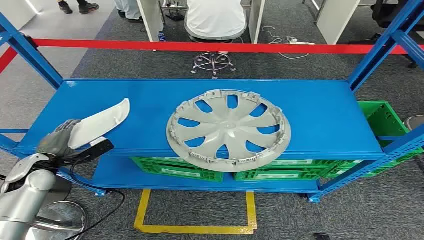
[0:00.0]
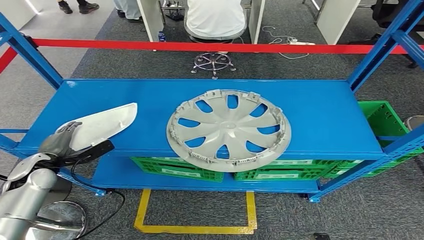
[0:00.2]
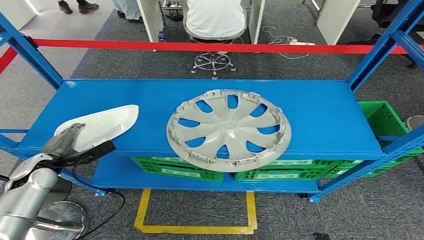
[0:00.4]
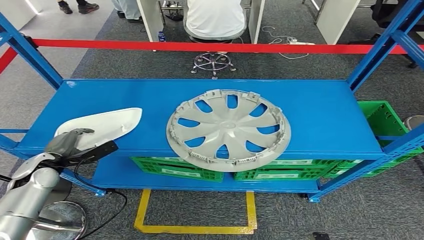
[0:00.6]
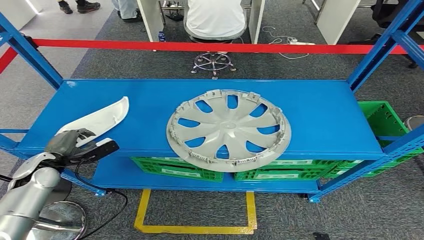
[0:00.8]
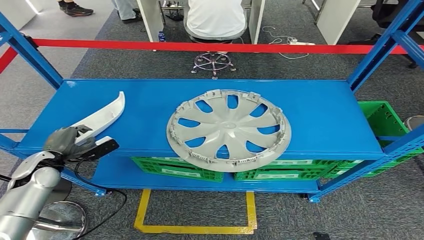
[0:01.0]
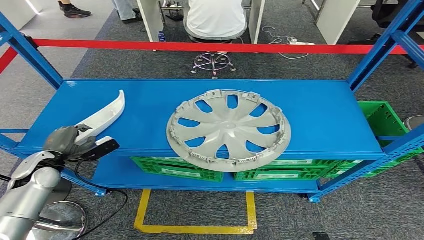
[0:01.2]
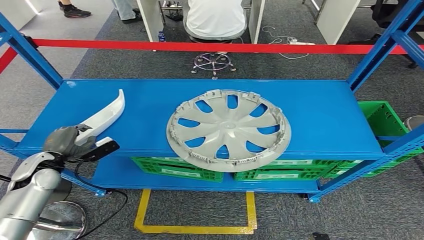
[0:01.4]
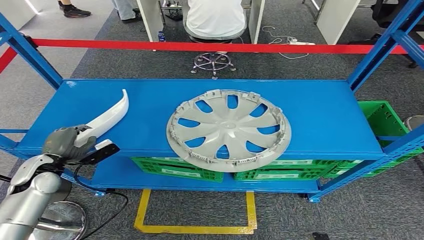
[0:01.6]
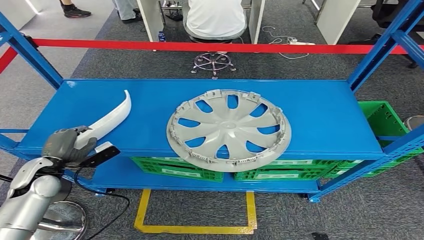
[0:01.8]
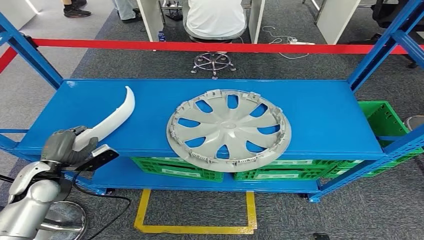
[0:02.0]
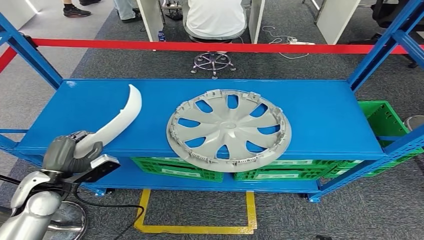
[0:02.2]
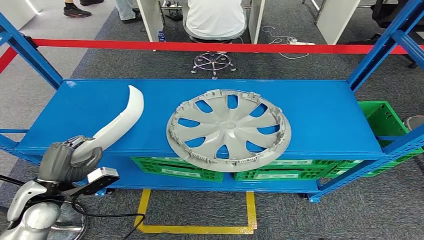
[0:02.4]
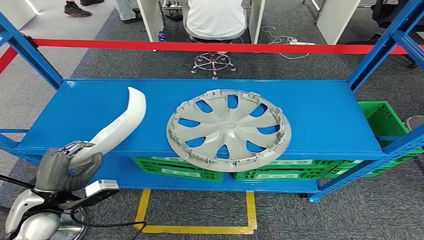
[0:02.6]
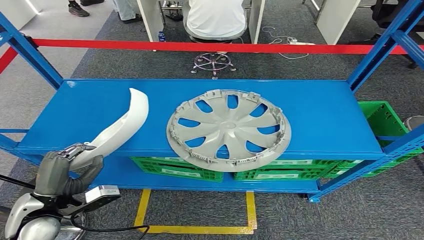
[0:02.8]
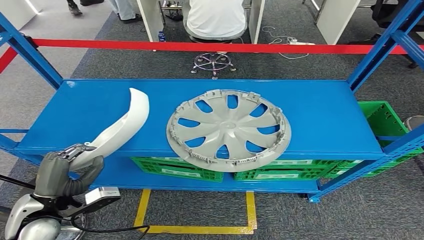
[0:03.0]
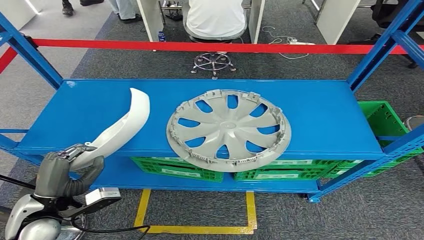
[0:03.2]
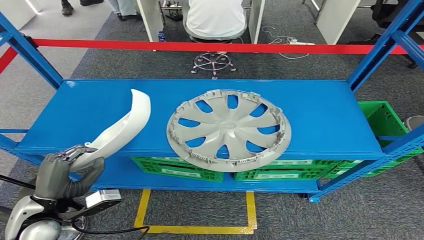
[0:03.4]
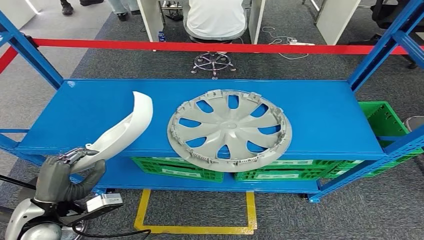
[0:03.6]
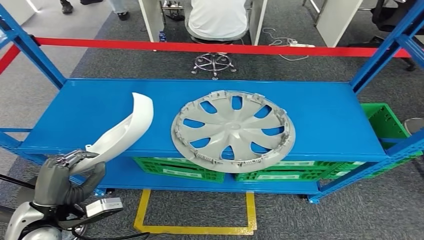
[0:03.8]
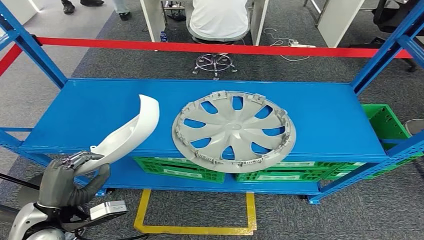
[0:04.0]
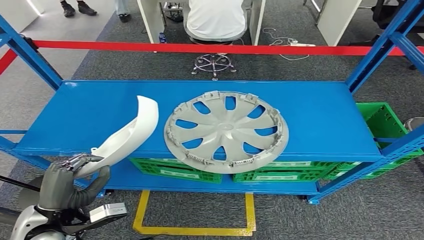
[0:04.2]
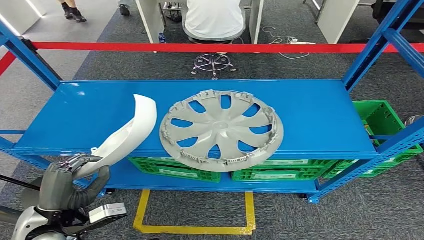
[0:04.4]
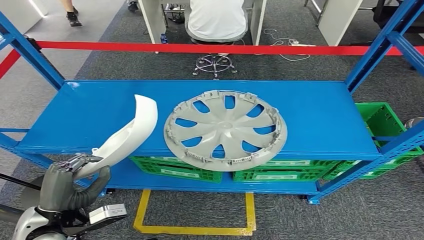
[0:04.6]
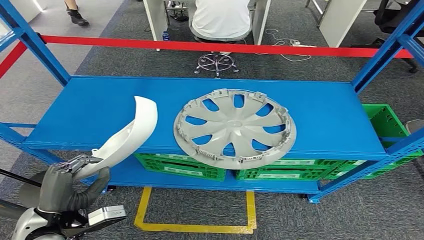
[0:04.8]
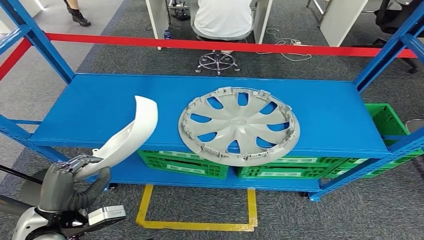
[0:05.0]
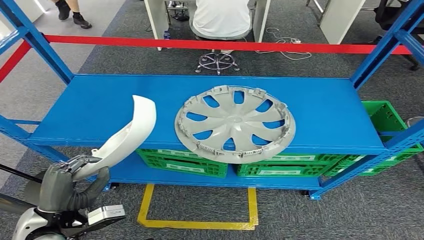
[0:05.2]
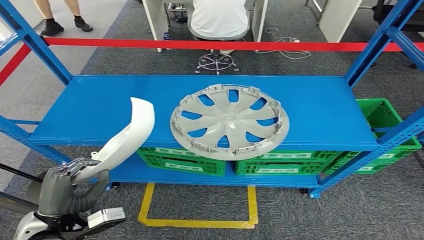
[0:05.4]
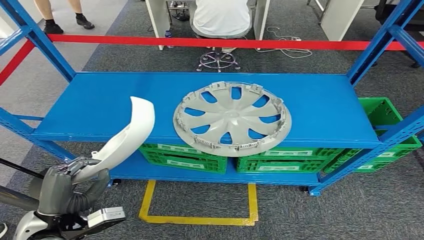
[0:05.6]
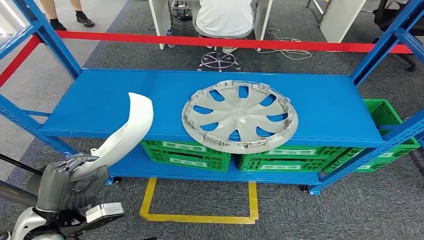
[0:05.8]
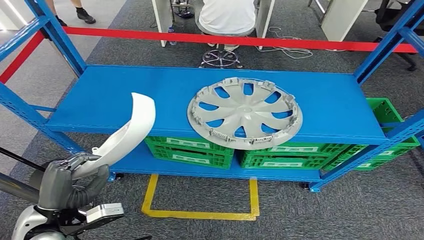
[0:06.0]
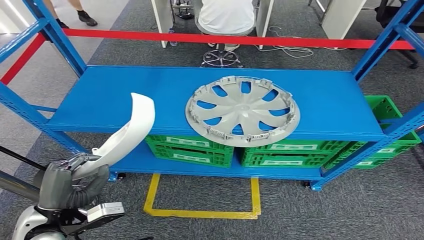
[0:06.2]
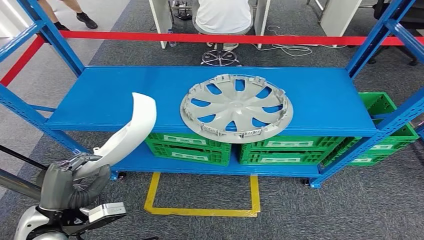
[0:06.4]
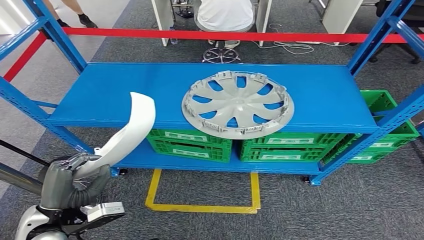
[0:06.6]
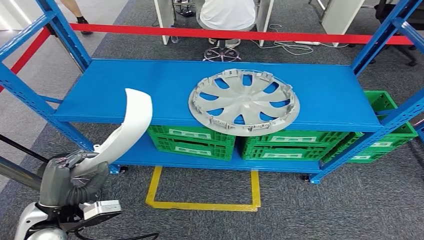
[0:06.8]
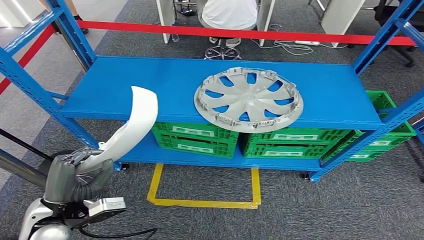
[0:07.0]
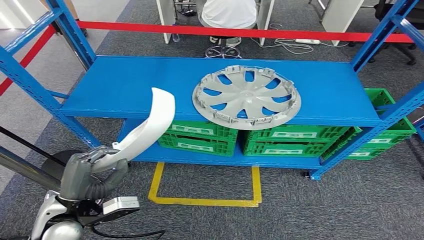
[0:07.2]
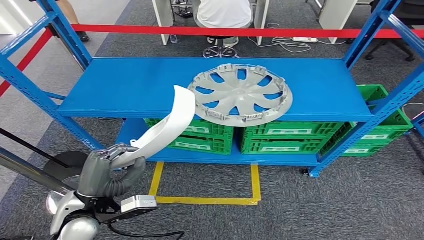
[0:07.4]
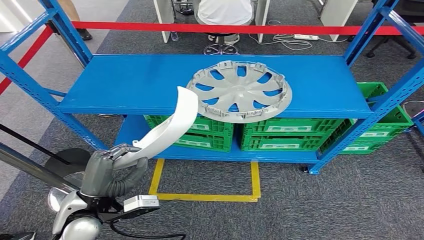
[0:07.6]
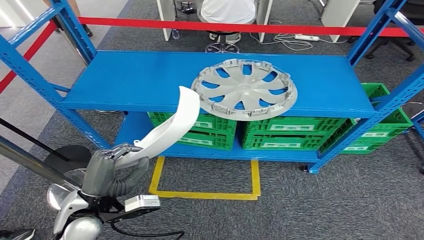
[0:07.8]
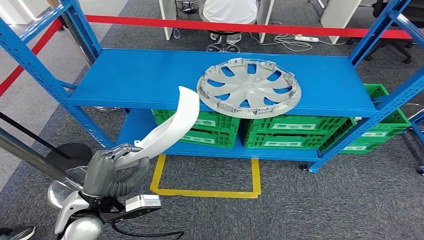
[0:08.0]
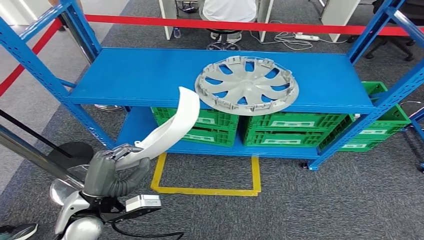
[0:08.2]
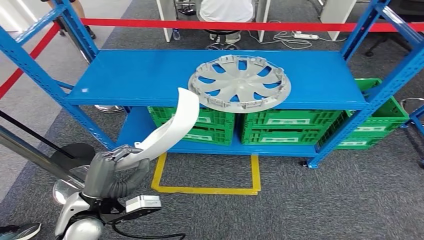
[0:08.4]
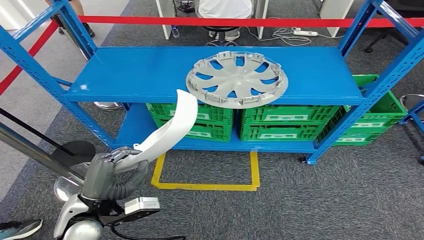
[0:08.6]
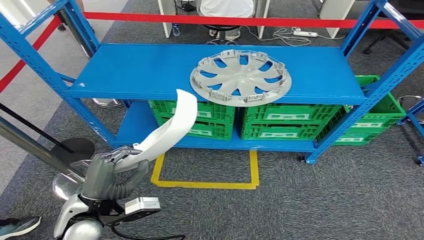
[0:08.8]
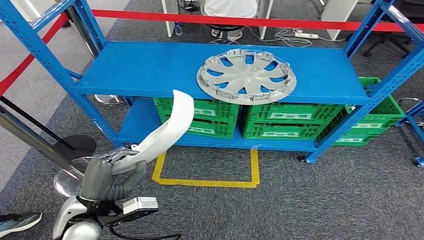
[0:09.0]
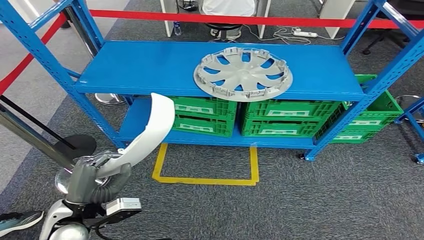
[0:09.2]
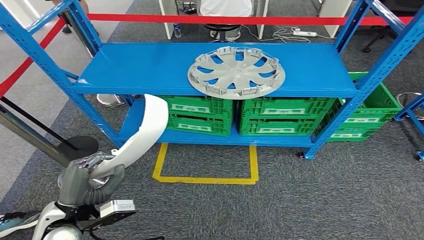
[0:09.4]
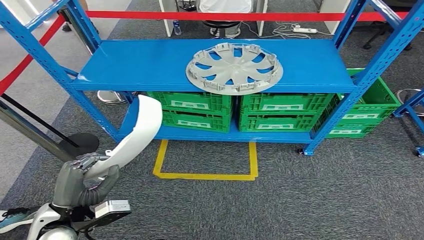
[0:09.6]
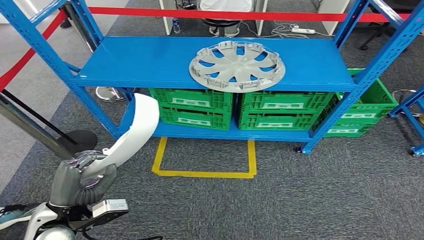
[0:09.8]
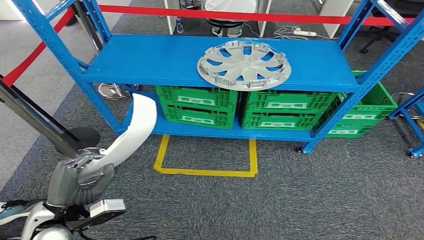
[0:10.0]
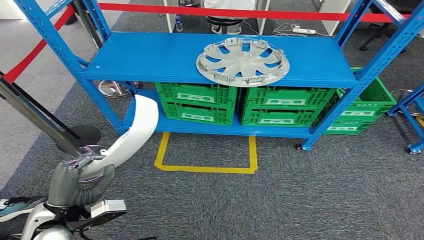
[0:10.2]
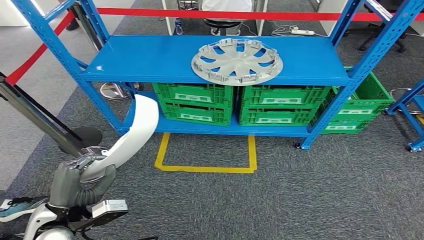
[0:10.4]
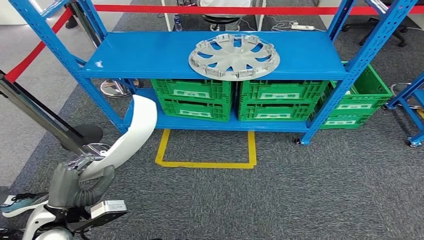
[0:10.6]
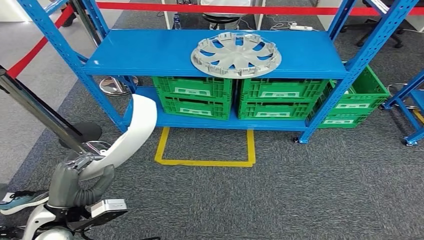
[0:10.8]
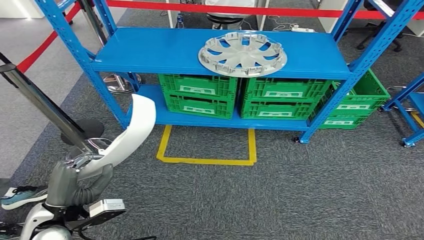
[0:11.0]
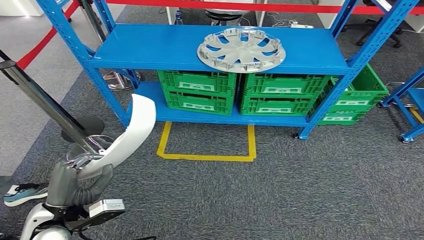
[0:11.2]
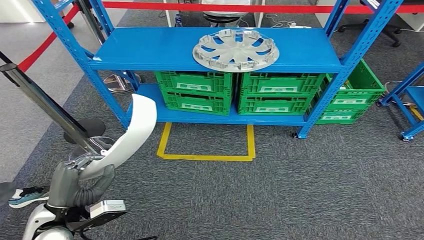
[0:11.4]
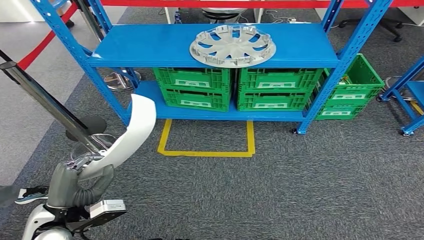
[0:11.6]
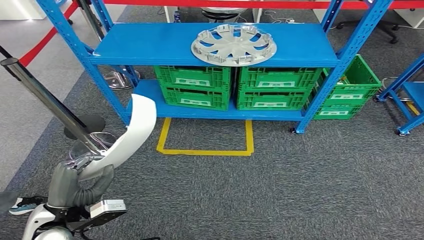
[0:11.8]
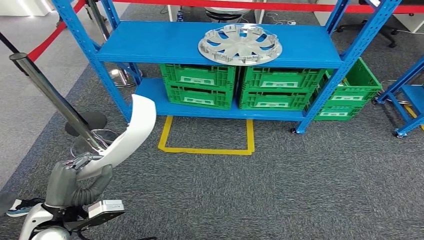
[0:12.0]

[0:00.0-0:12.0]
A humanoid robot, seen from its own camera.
Step, 0.0 to 4.8 s: Pick up the small component from the shelf.
1.6 to 3.0 s: The left hand shifts approximately 15 cm backward and to the right.

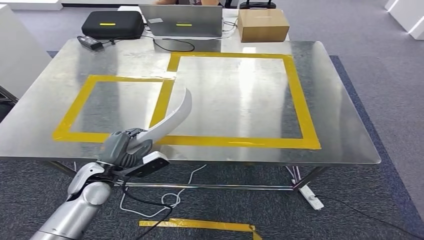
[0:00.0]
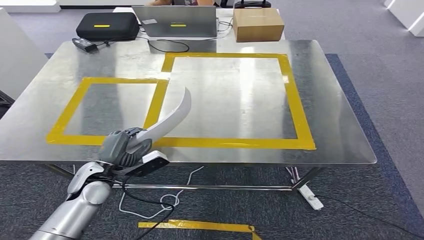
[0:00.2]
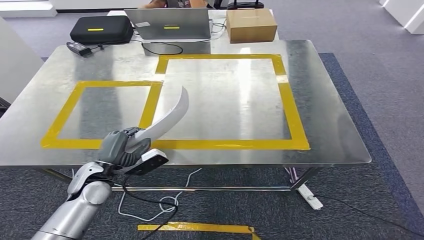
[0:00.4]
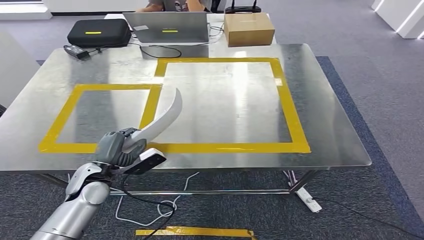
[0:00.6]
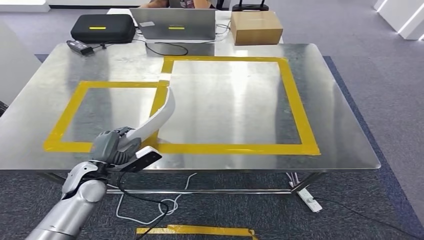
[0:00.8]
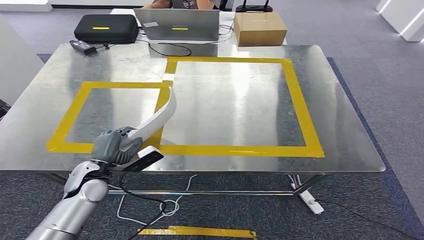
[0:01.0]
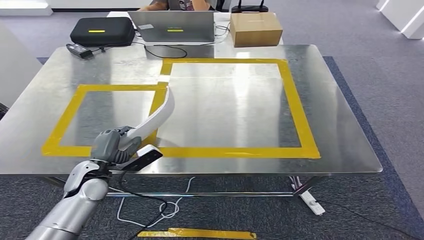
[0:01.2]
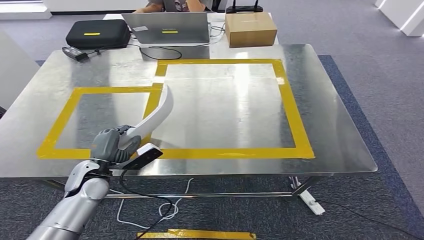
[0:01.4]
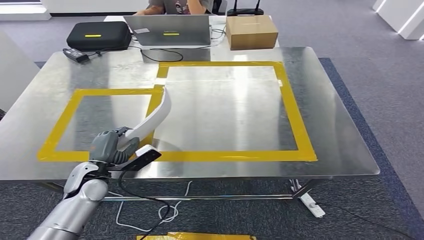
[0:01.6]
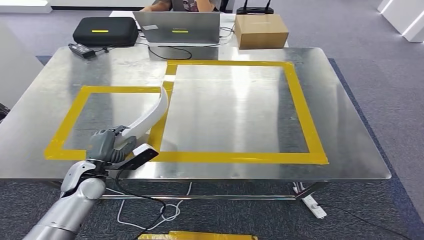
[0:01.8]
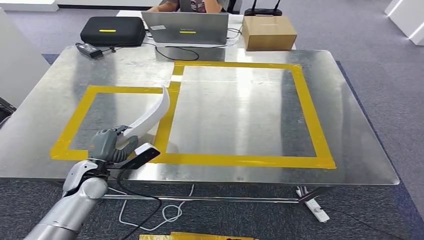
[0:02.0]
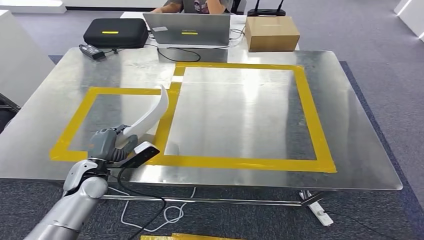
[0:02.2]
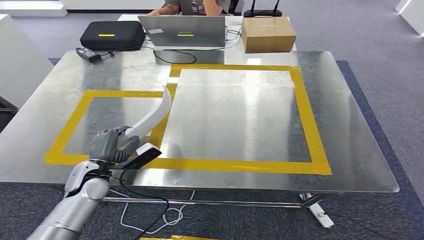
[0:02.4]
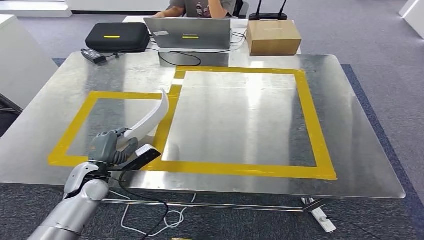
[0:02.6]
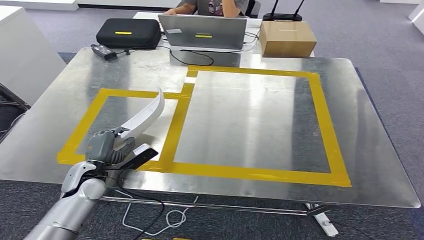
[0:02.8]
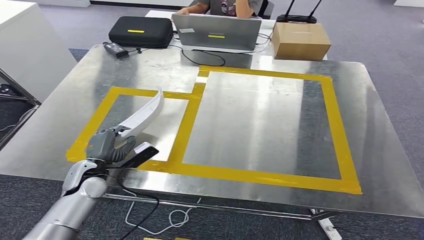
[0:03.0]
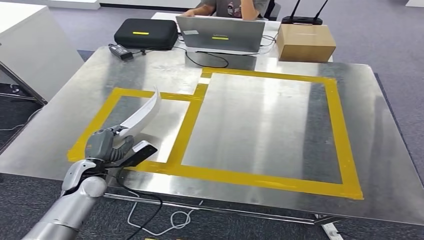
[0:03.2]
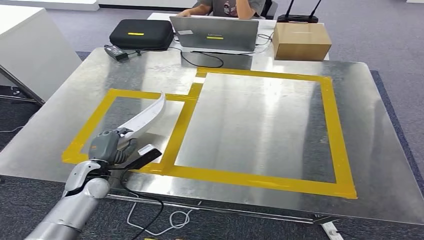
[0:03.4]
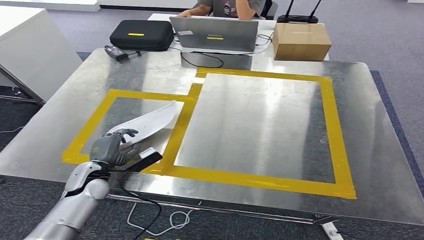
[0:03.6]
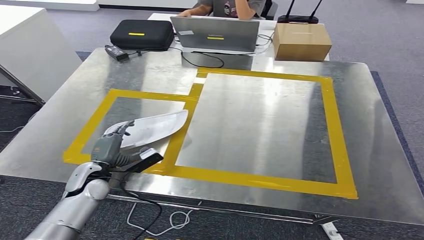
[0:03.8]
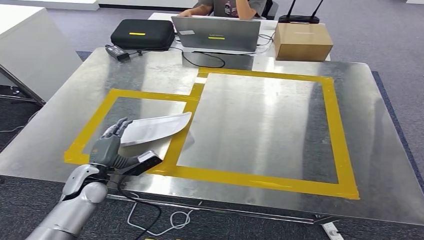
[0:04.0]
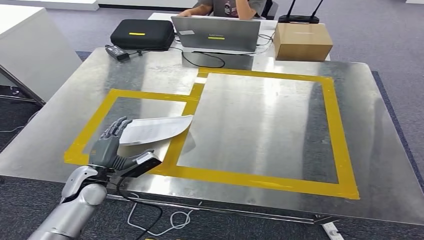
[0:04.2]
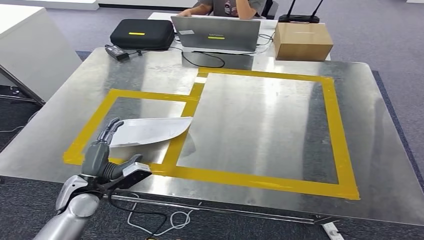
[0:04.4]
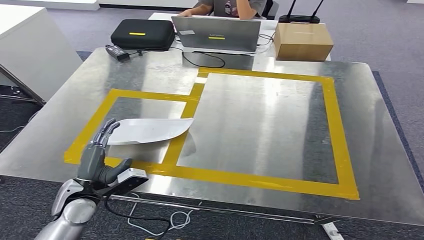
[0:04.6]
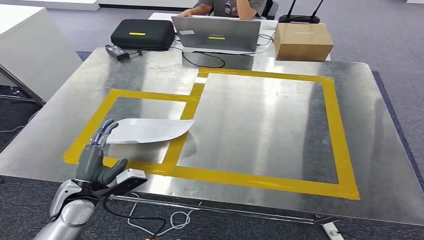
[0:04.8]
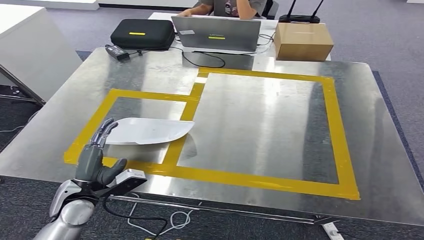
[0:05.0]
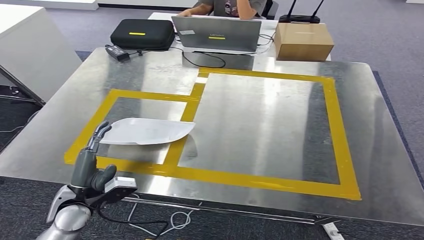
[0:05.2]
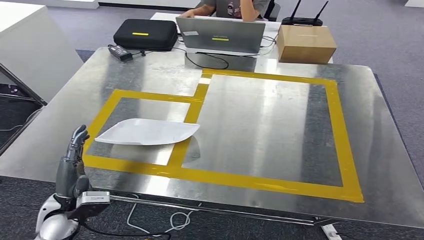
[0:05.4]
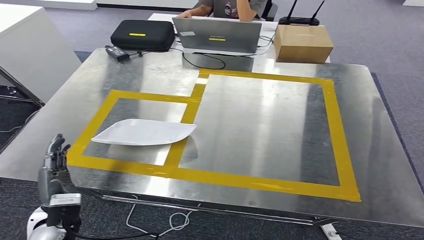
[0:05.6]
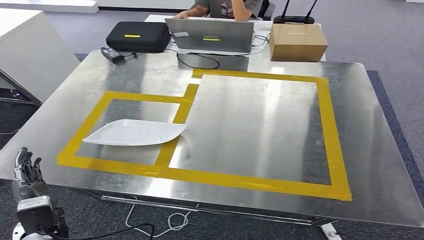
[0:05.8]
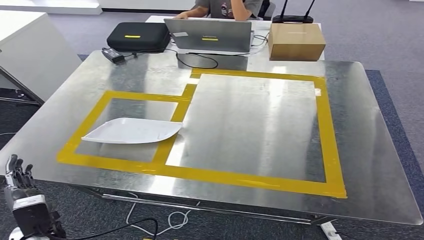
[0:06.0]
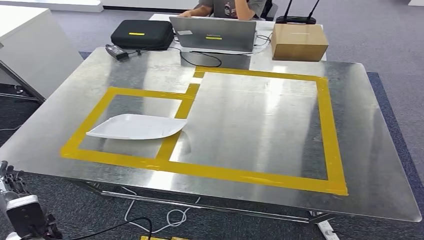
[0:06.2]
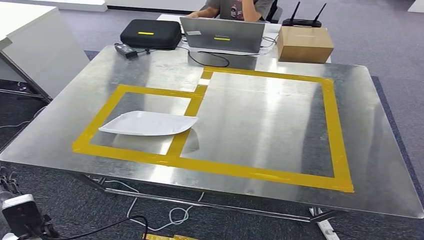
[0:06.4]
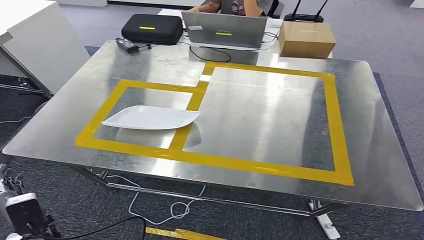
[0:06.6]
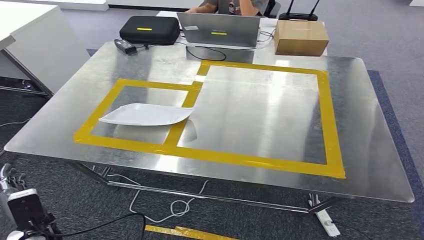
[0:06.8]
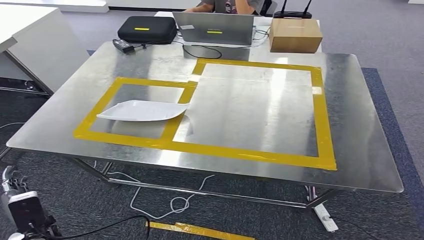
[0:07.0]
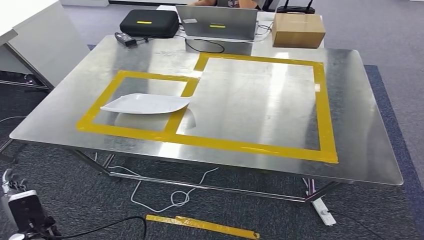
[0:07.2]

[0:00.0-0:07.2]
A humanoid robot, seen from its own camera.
Step, 1.2 to 5.8 s: Insert the small component into the corresponding slot on the workbench.
